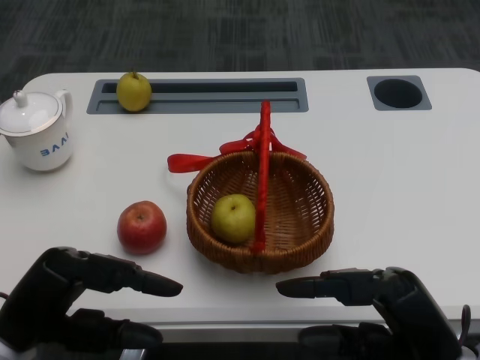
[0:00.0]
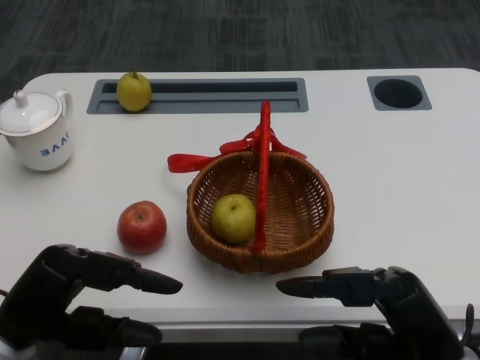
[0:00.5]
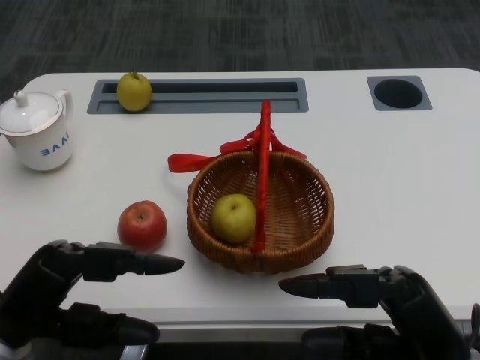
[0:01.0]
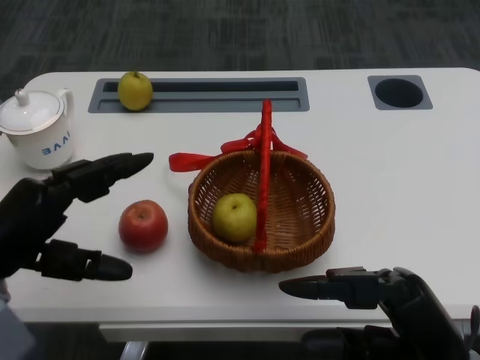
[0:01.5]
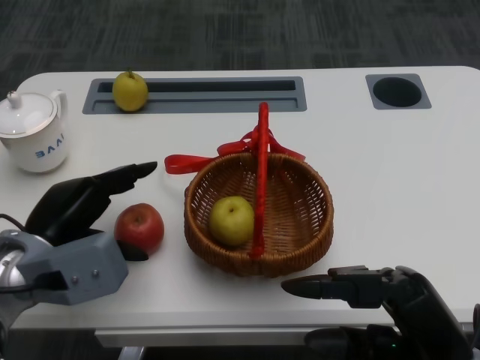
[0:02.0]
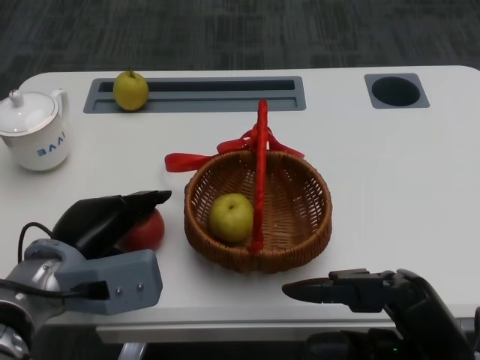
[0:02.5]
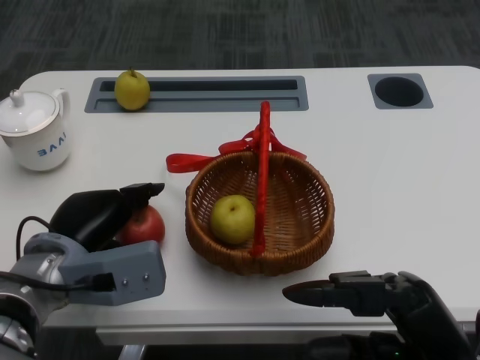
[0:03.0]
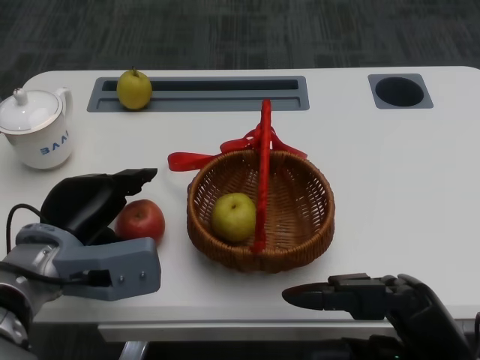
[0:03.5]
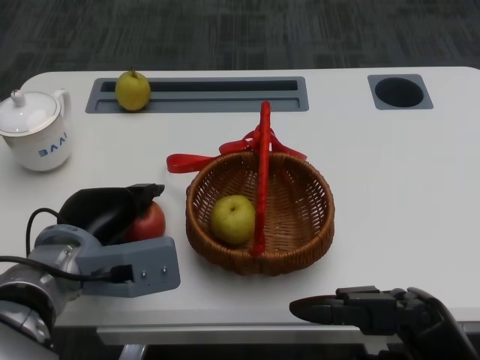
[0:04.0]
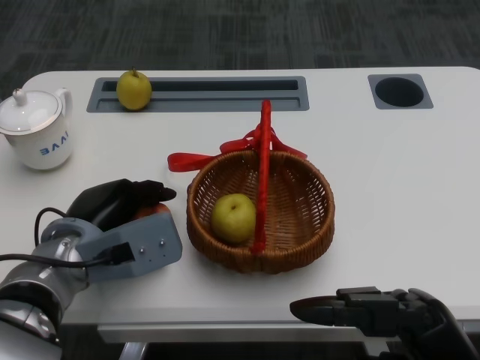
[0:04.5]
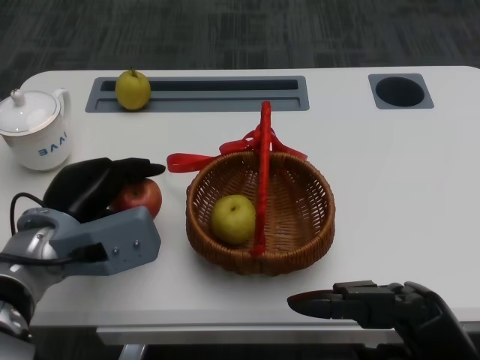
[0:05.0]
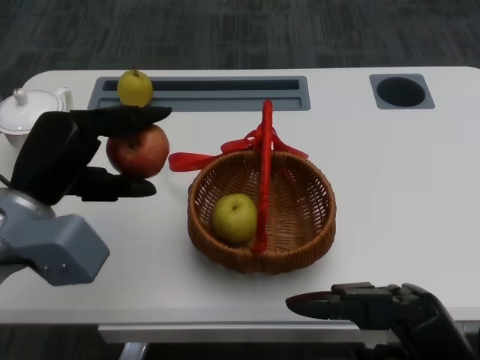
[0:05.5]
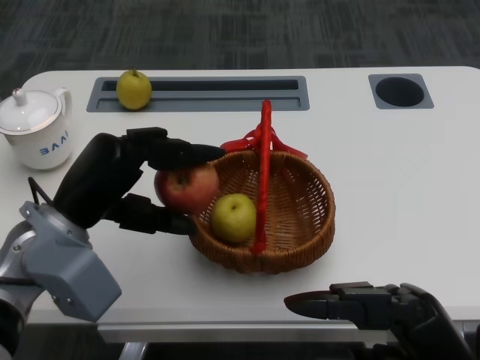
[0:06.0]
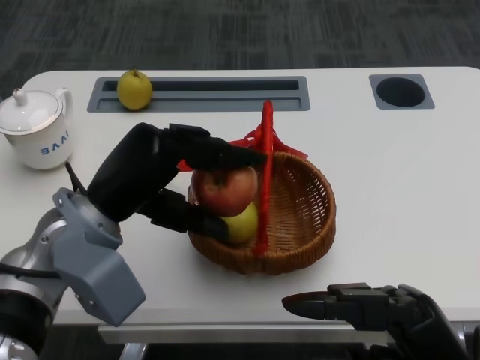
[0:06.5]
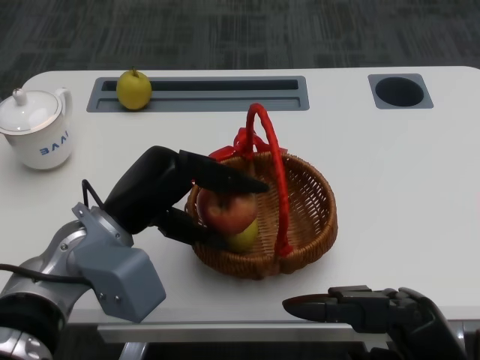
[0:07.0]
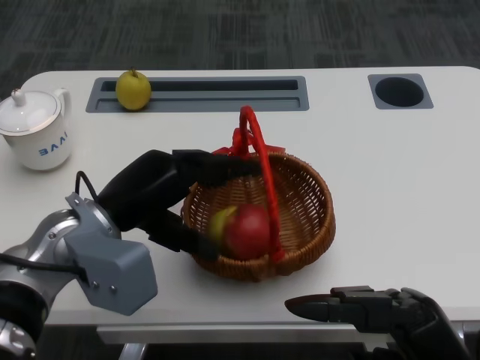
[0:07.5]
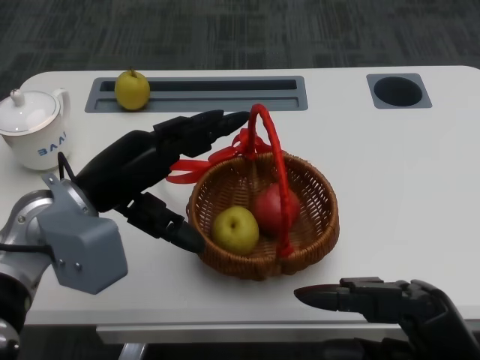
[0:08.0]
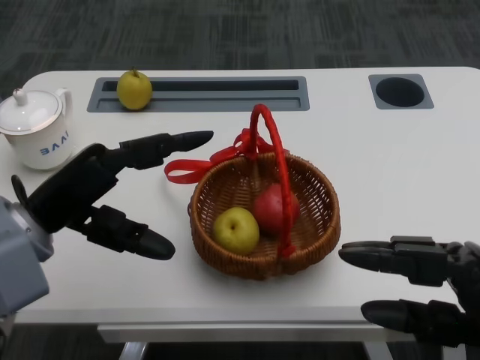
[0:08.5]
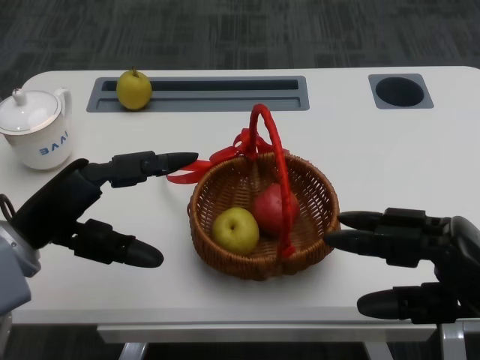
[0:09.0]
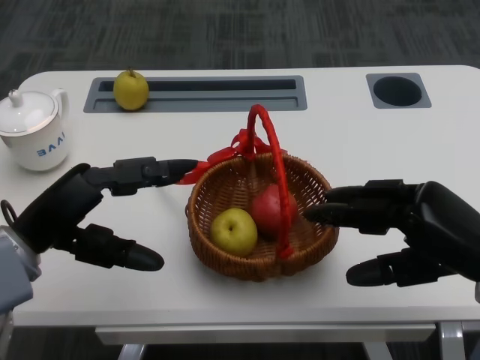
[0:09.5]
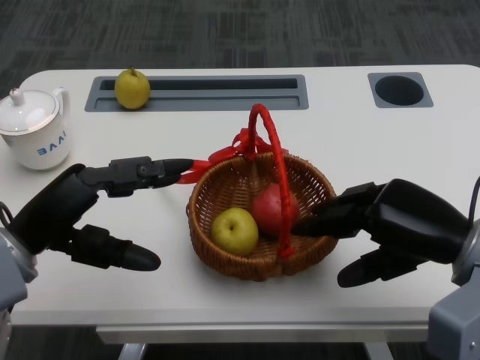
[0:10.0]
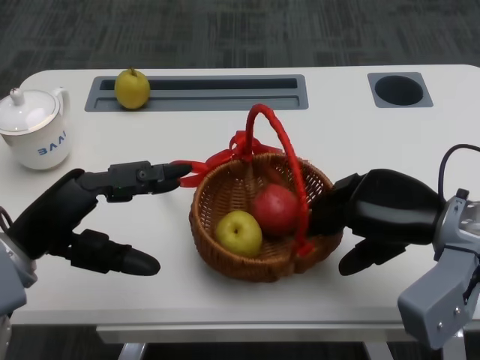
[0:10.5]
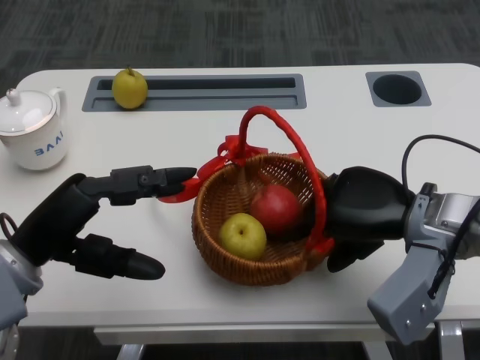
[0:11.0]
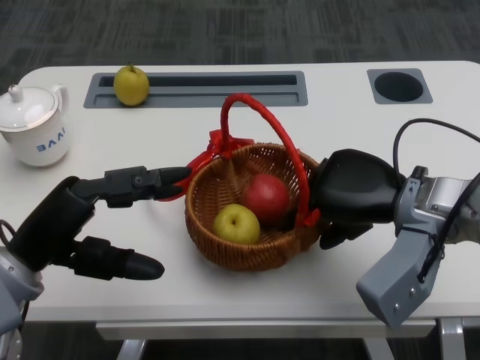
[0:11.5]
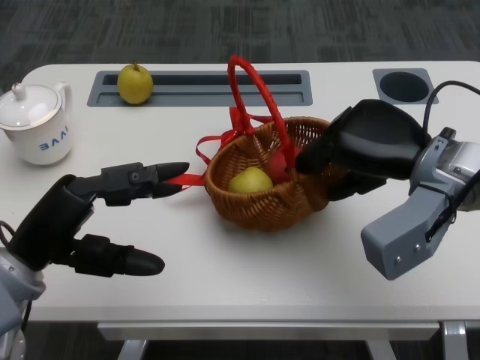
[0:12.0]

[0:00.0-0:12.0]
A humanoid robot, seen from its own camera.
Step, 0:01.0 to 0:03.5: Grasp the apple with the left gripper.
Step, 0:04.0 to 0:06.0: Place the apple into the basket with the left gripper.
Step, 0:06.5 to 0:09.0: Grasp the basket with the right gripper.
0:04.0 to 0:06.0: The left hand is displaced upward by about 5 cm.
0:08.0 to 0:10.0: The left hand travels to the left by roughly 5 cm. Meanwhile the right hand shifts about 10 cm forward.
0:10.0 to 0:12.0: The right hand travels forward by roughly 5 cm.

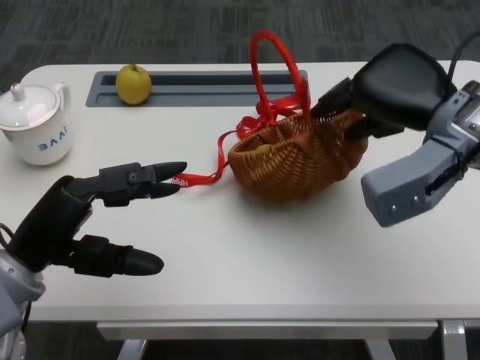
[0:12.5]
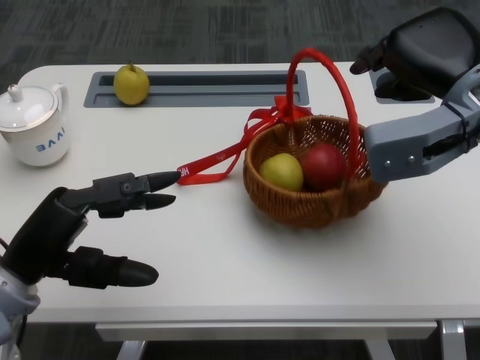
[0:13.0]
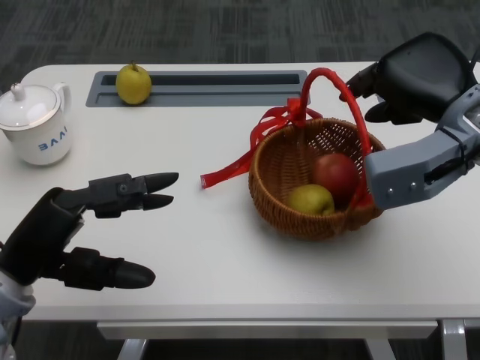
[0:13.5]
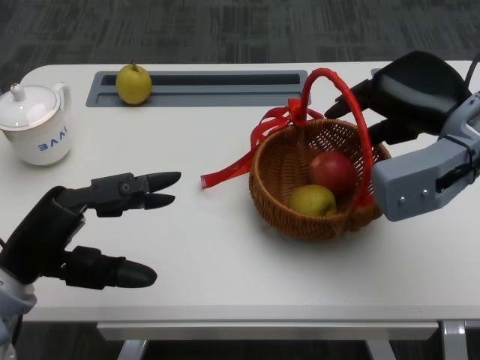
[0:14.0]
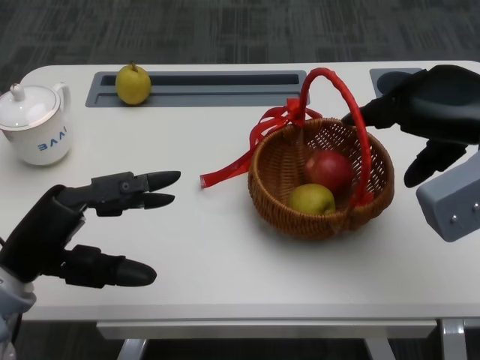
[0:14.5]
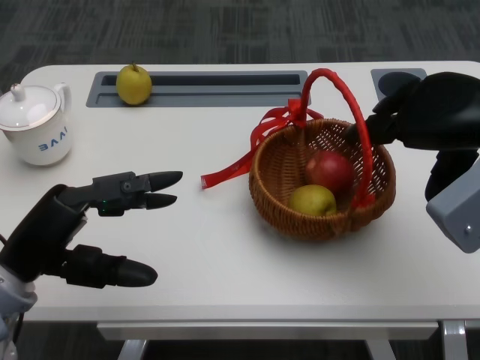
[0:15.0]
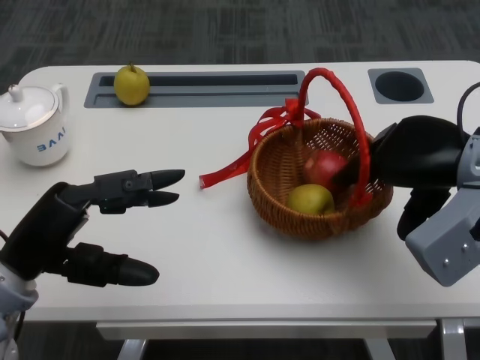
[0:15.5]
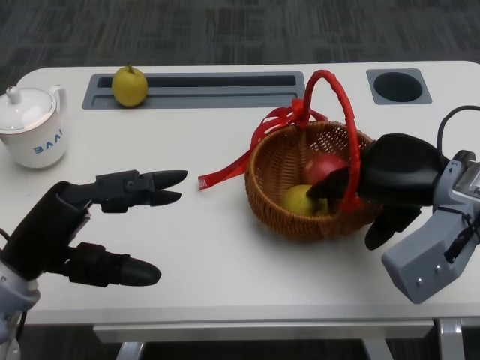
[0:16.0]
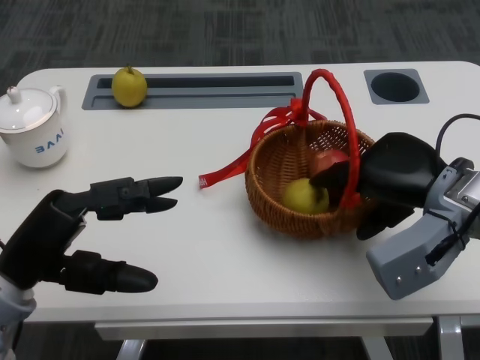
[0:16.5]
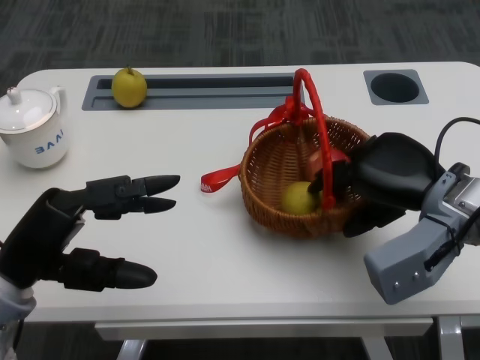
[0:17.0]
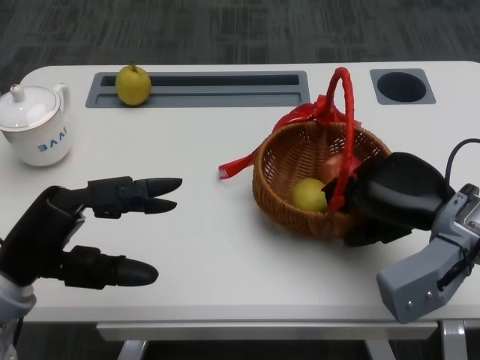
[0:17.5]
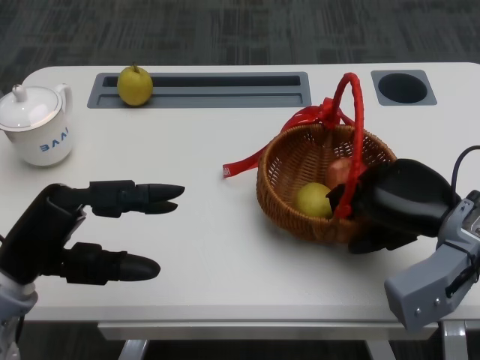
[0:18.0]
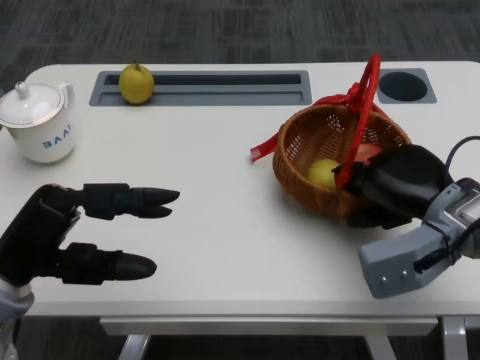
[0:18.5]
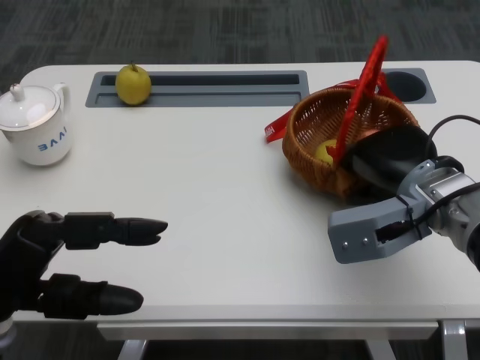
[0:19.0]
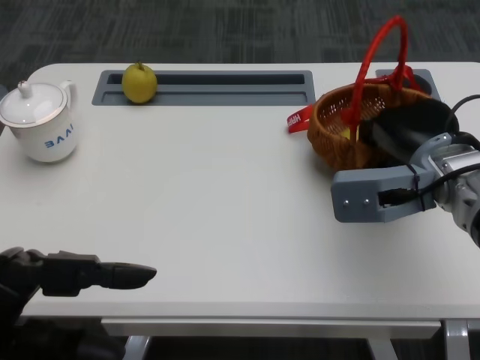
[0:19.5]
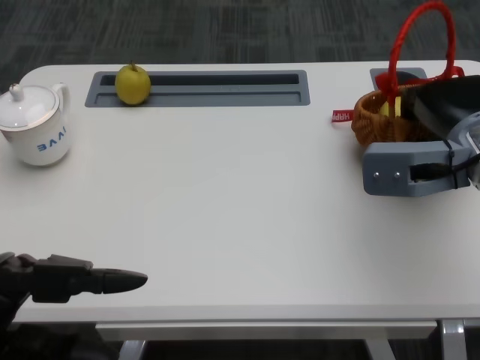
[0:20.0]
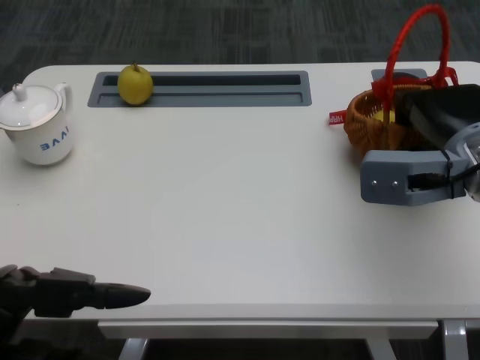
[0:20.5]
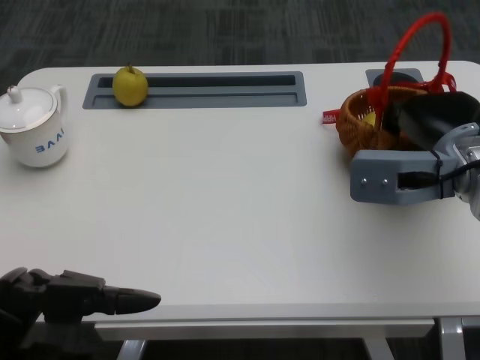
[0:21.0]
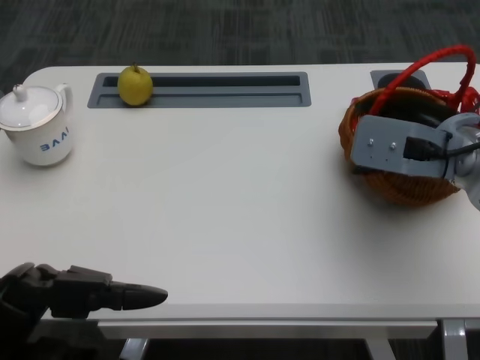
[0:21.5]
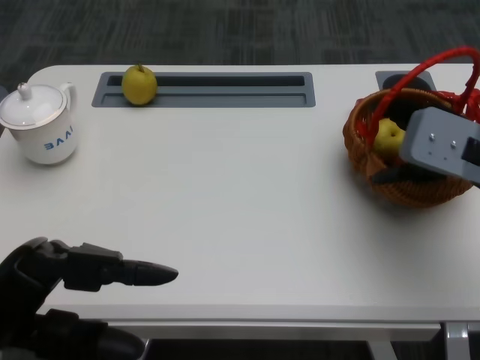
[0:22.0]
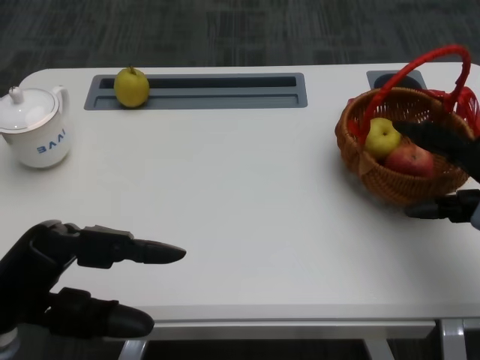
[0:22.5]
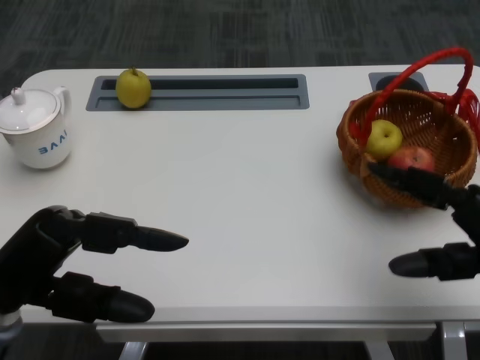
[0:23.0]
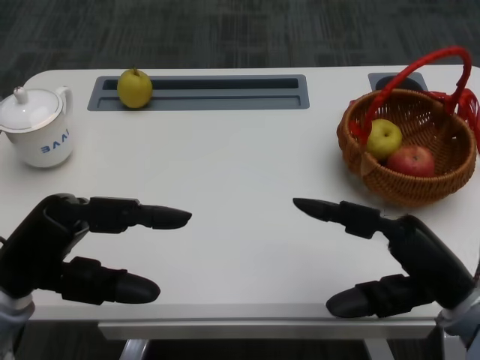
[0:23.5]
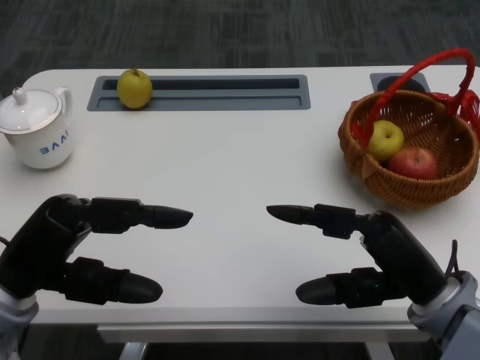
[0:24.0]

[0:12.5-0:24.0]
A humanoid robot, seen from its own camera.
Step, 0:12.5 to 0:17.0: Move the basket to the front of the table with the right gripper.
0:14.5 to 0:16.5: The right hand shifts about 5 cm downward.
0:18.5 to 0:20.0: The right hand shifts some 5 cm upward. Meanwhile the left hand shifts about 10 cm backward.
0:22.0 to 0:24.0: The left hand travels forward by about 5 cm; the right hand shifts roughly 15 cm backward and downward.

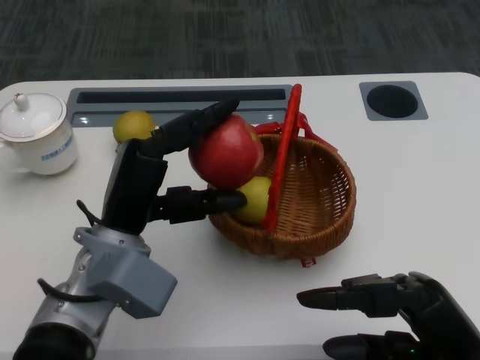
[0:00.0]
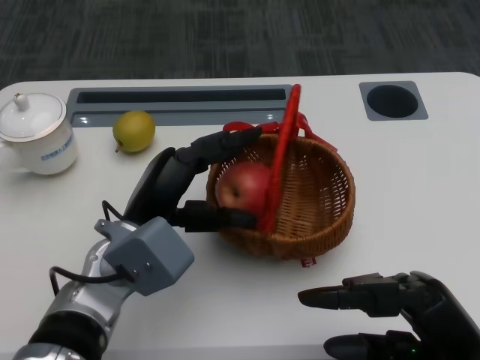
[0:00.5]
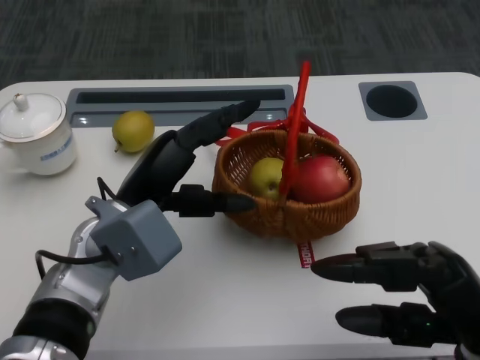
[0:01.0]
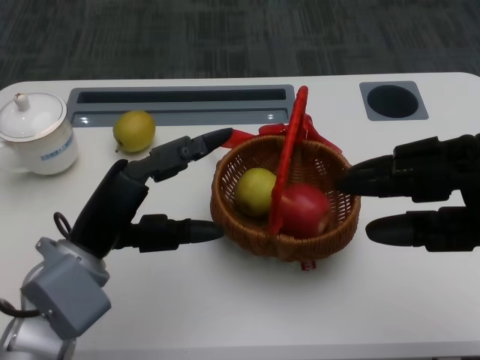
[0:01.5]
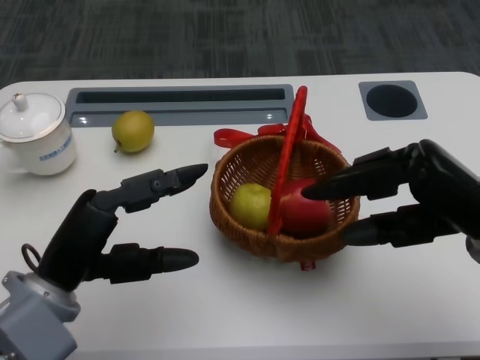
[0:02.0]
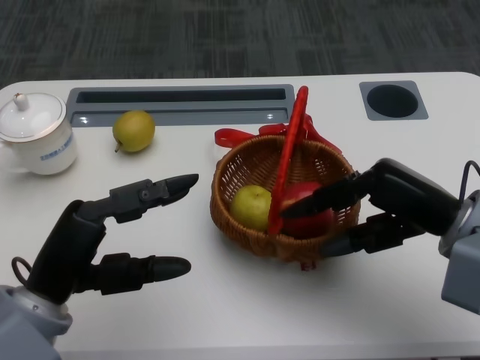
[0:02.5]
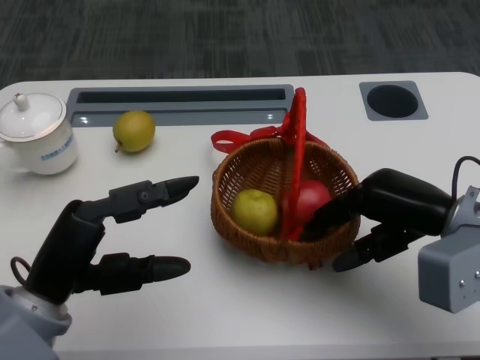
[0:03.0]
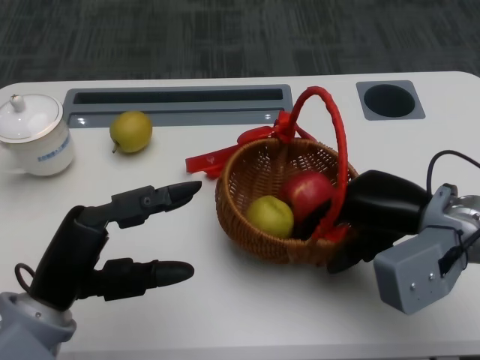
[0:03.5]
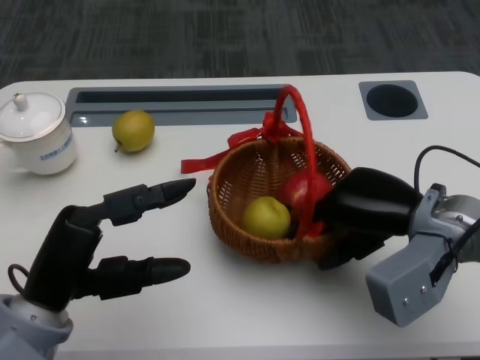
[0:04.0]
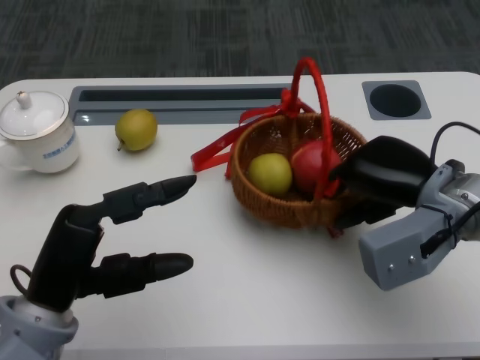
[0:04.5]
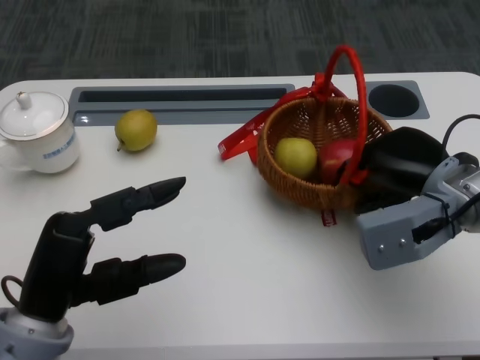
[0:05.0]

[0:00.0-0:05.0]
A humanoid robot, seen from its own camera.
Step, 0:00.0 to 0:02.0: Grasp the basket with the right gripper.
Step, 0:02.5 to 0:04.5: Move the basket to the front of the table with the right gripper.
0:00.0 to 0:02.5: The left hand is displaced to the left and backward by some 10 cm; the right hand travels forward and upward by approximately 15 cm.
